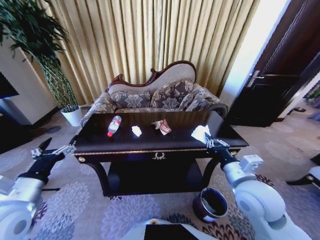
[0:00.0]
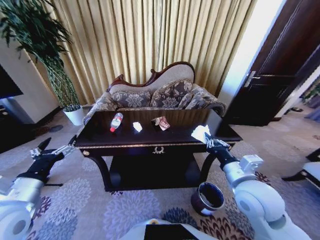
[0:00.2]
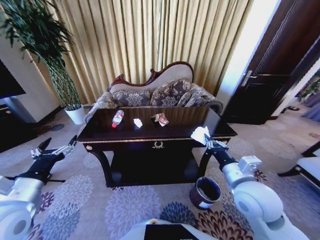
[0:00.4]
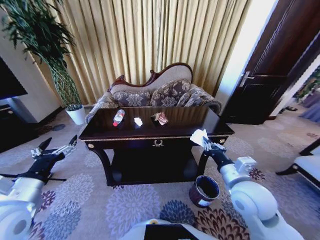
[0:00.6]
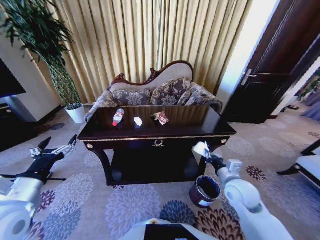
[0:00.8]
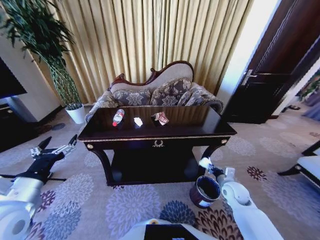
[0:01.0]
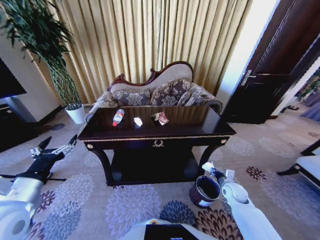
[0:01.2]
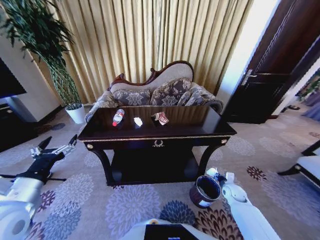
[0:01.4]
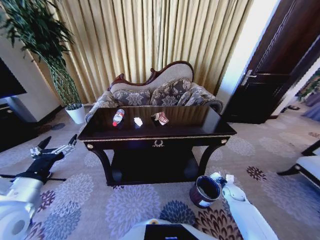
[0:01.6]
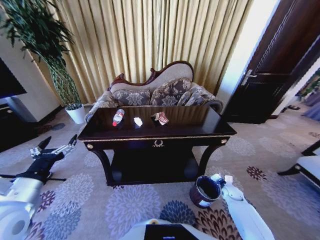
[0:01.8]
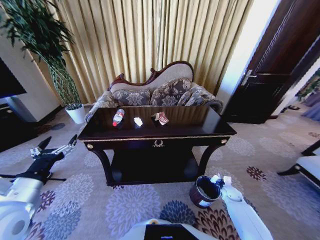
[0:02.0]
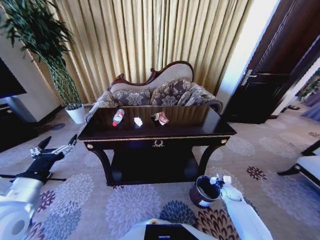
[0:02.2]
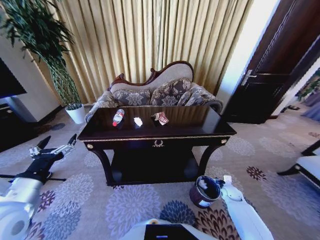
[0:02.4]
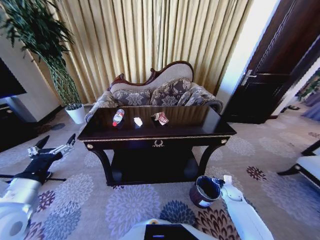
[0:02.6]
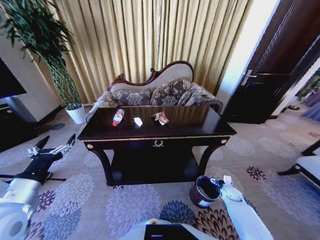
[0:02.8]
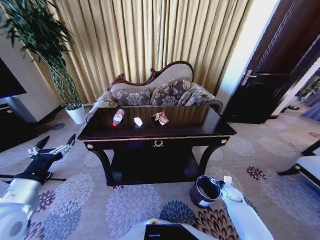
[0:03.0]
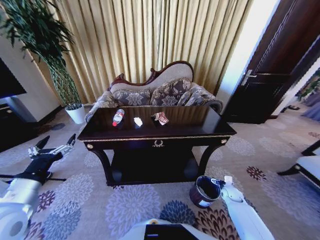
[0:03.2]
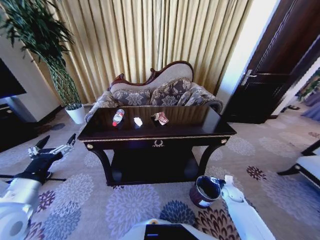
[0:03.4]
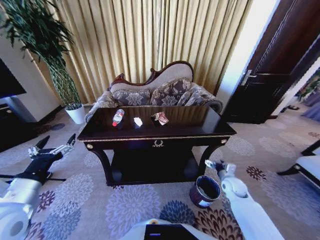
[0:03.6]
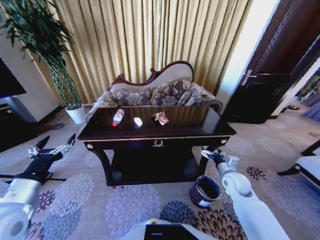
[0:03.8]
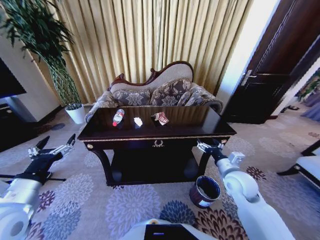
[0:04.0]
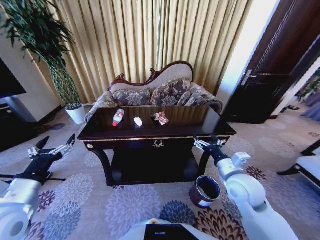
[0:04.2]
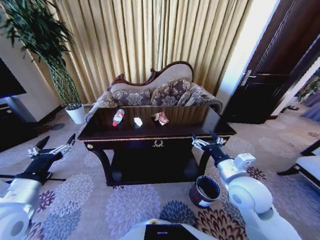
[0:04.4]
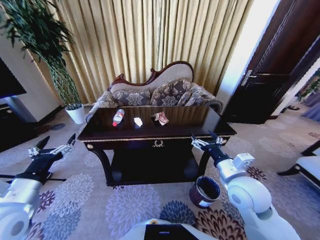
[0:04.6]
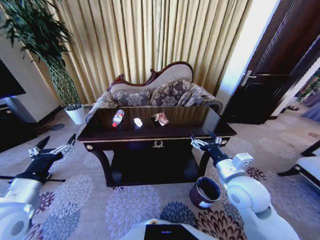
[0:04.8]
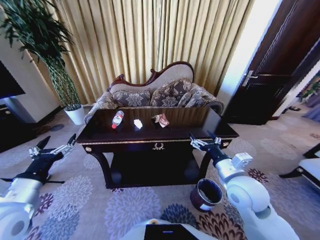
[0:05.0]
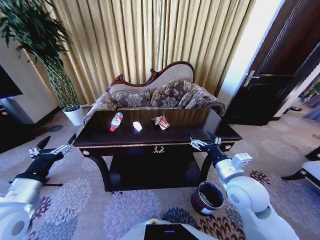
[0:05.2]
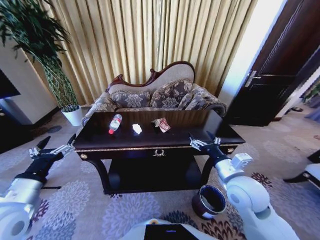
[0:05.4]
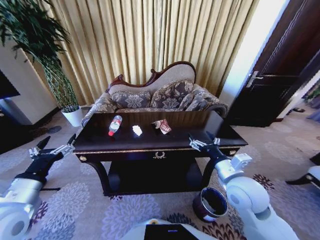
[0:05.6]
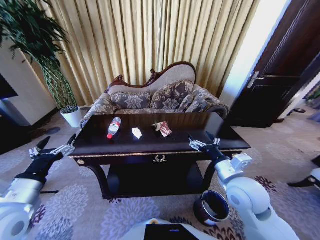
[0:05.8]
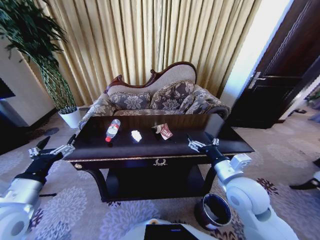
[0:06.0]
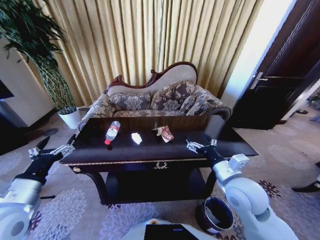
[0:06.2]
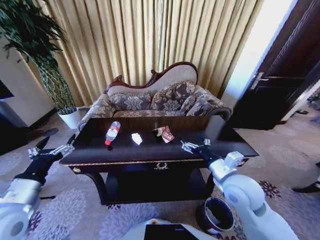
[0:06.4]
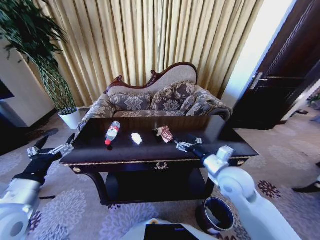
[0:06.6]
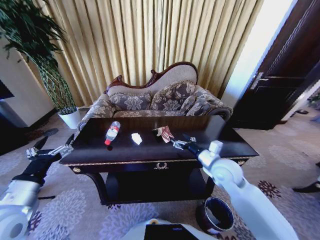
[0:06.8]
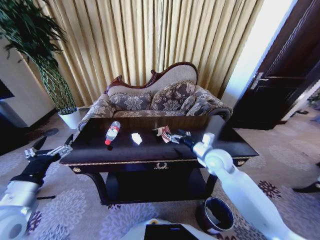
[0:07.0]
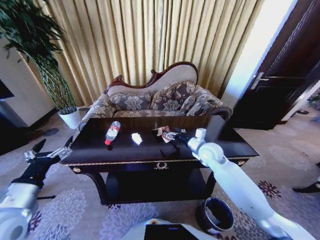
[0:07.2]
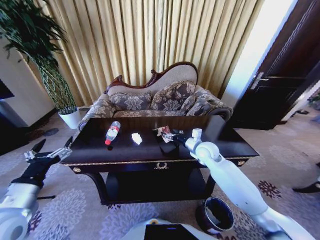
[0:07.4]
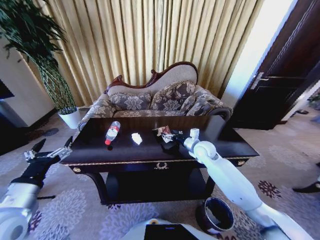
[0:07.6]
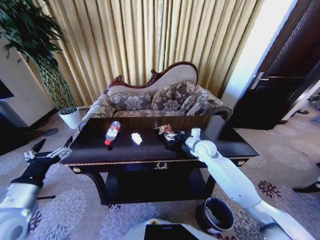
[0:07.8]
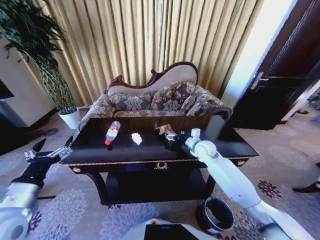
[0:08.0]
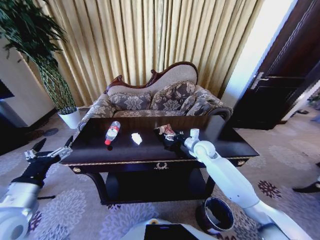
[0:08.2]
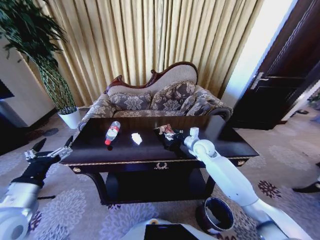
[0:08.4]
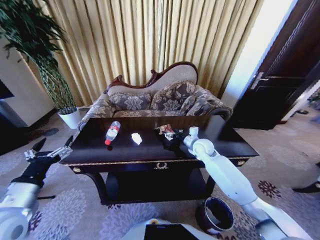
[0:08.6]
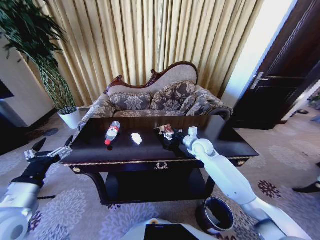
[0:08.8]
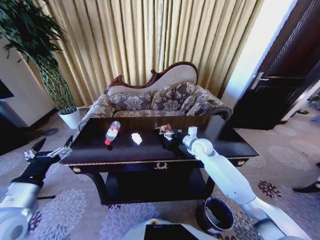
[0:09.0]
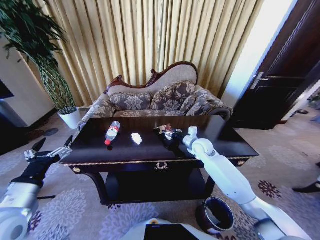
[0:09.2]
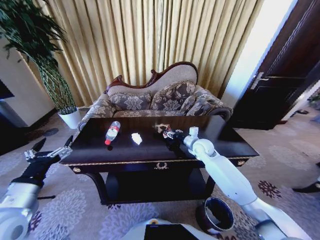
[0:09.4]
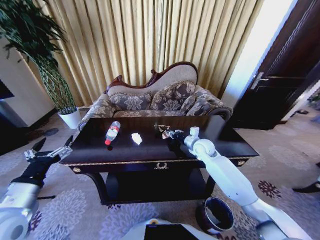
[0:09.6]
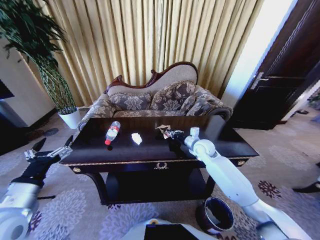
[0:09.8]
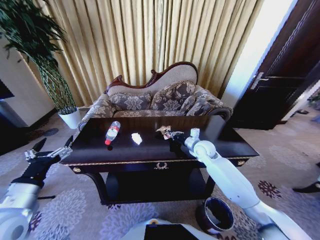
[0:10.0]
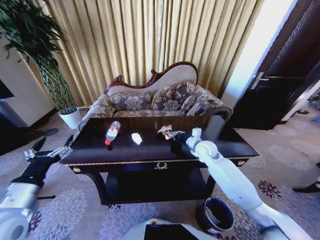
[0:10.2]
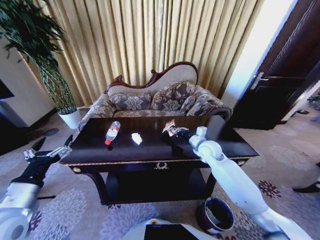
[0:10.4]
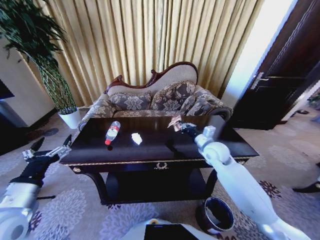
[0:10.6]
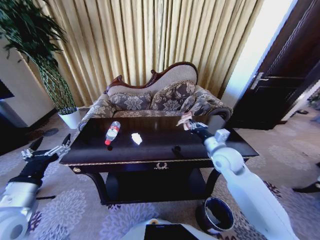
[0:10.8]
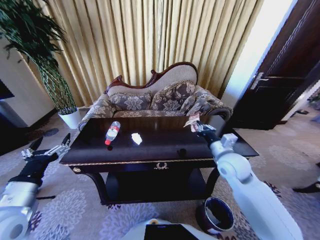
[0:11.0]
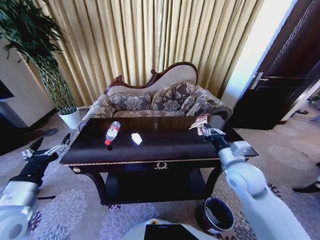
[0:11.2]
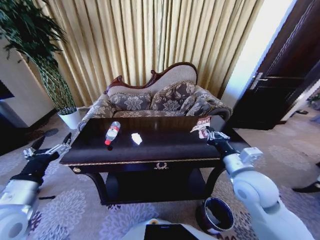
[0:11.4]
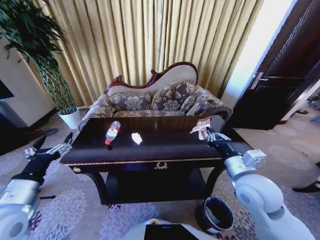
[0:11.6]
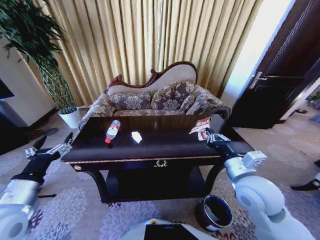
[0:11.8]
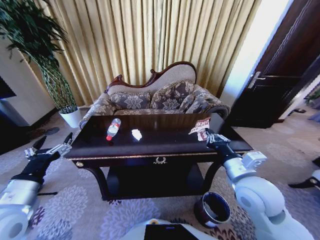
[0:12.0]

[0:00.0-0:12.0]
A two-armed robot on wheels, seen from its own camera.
Task of the whole recording: Move to the front of the table and place the trash on the table into the trash bin.
0:00.0 to 0:01.6: The right gripper travels downward and to the right by roughly 40 cm.
0:01.6 to 0:03.0: The right gripper opens up.
0:03.0 to 0:04.4: The right gripper shifts some 35 cm upward and to the left.
0:06.0 to 0:07.6: The right gripper moves forward, roughly 20 cm.
0:07.6 to 0:09.0: The grippers stay close to where they were, moving slightly.
0:09.0 to 0:10.4: The right gripper closes.
0:10.4 to 0:12.0: The right gripper shifts approximately 20 cm backward.

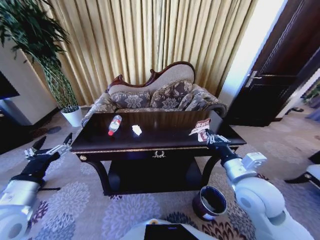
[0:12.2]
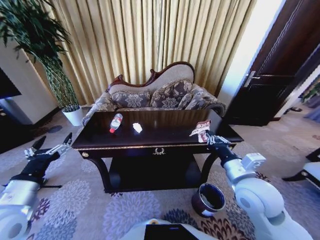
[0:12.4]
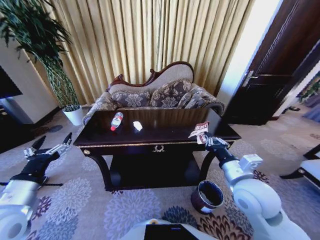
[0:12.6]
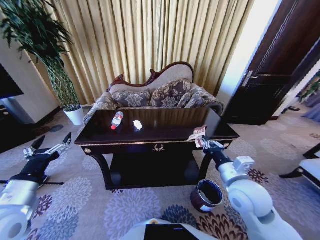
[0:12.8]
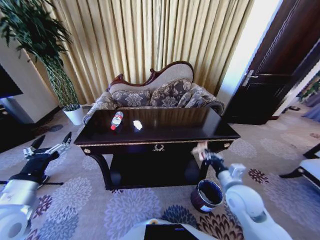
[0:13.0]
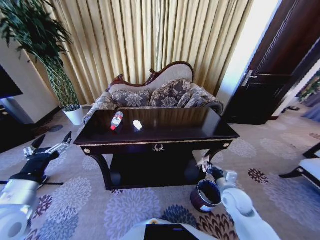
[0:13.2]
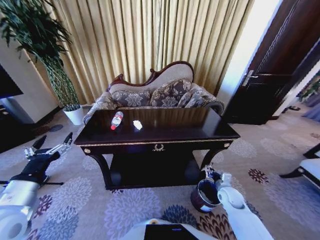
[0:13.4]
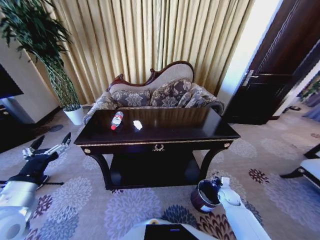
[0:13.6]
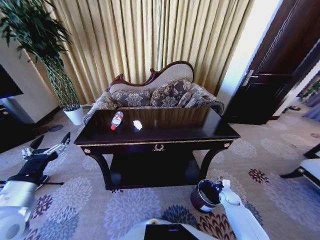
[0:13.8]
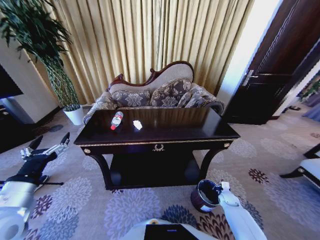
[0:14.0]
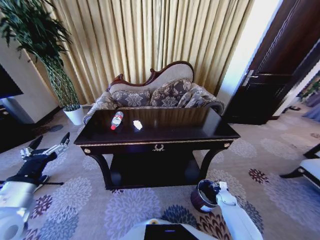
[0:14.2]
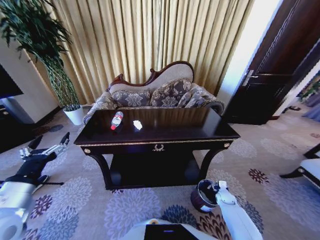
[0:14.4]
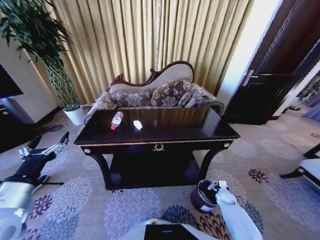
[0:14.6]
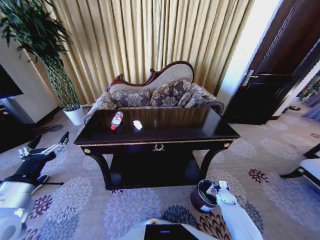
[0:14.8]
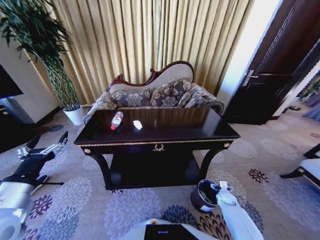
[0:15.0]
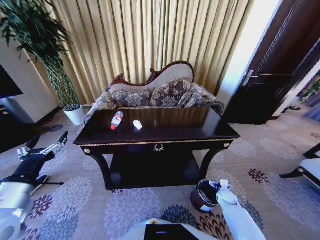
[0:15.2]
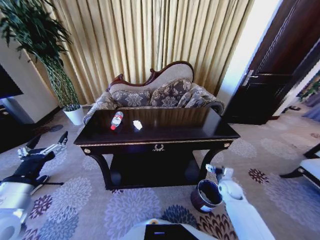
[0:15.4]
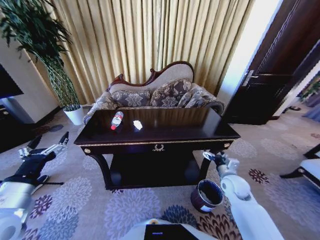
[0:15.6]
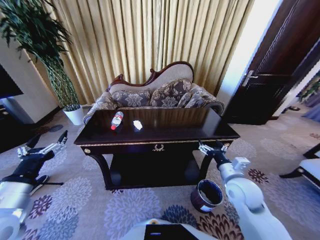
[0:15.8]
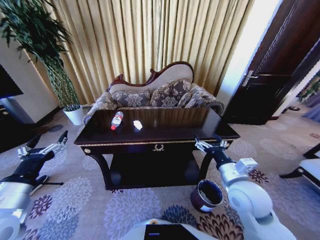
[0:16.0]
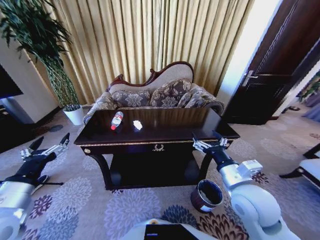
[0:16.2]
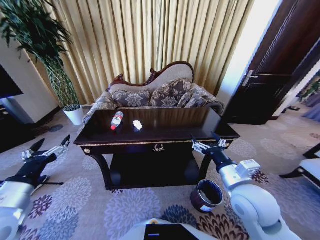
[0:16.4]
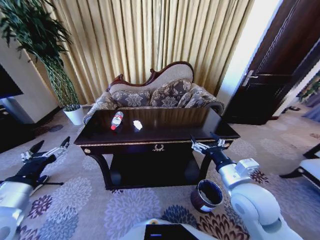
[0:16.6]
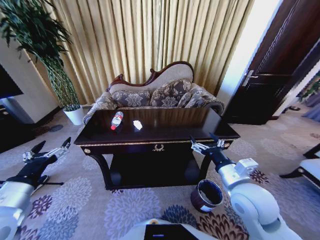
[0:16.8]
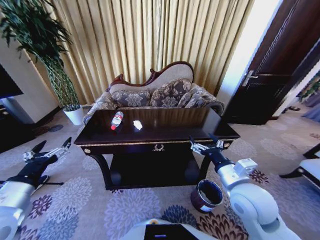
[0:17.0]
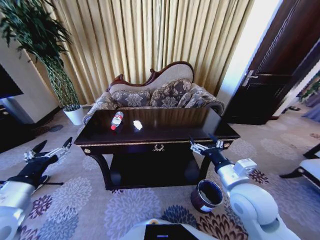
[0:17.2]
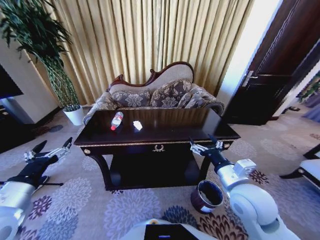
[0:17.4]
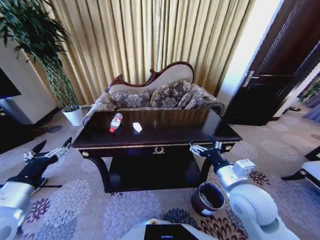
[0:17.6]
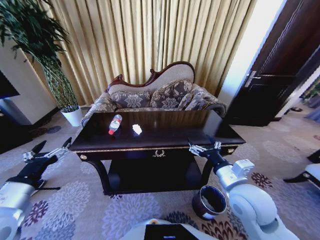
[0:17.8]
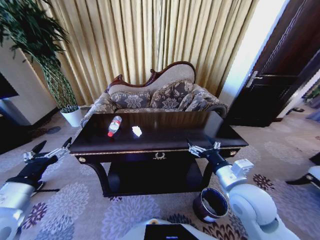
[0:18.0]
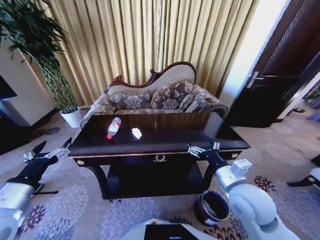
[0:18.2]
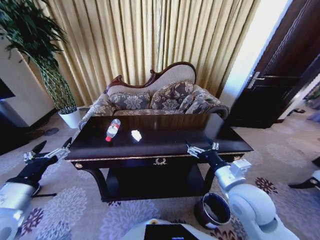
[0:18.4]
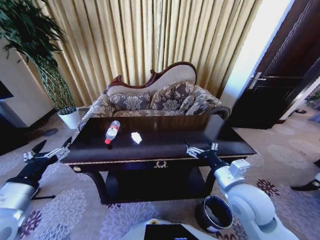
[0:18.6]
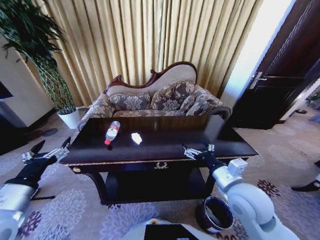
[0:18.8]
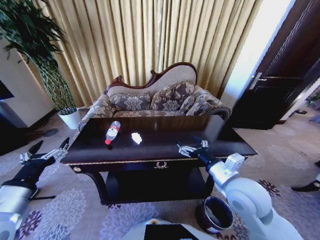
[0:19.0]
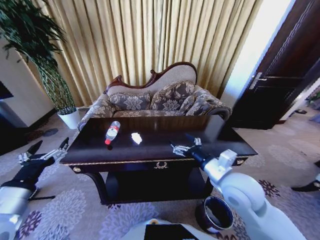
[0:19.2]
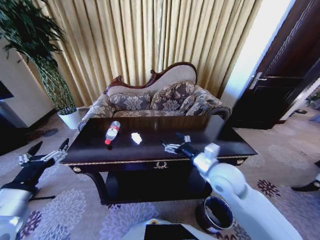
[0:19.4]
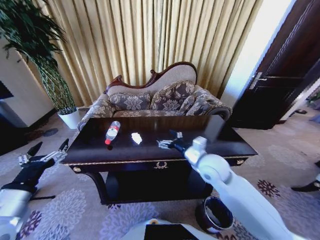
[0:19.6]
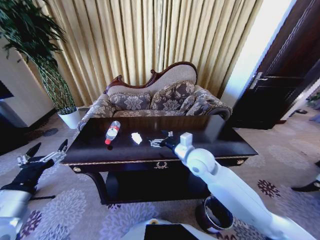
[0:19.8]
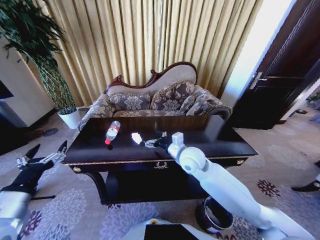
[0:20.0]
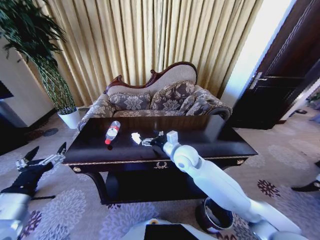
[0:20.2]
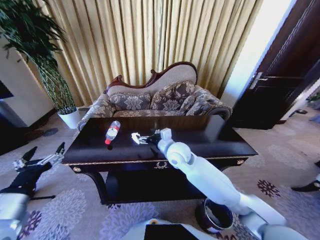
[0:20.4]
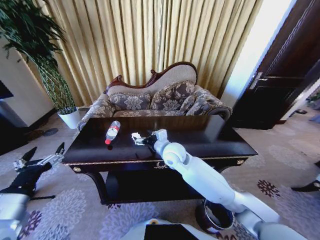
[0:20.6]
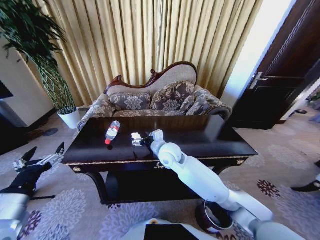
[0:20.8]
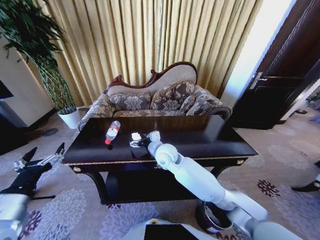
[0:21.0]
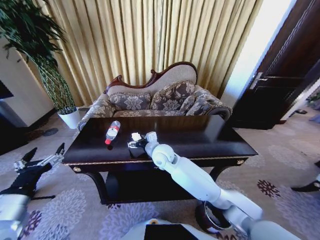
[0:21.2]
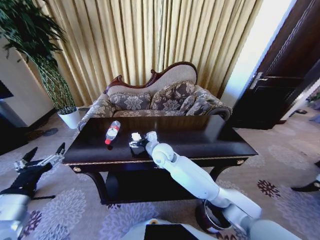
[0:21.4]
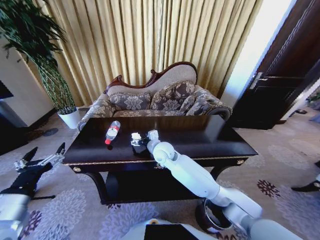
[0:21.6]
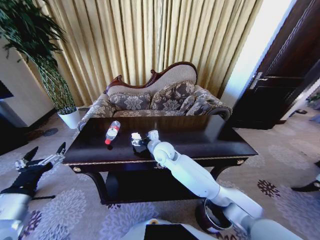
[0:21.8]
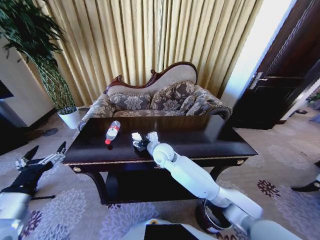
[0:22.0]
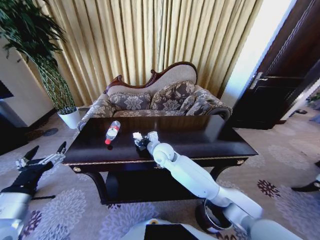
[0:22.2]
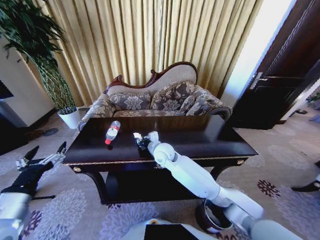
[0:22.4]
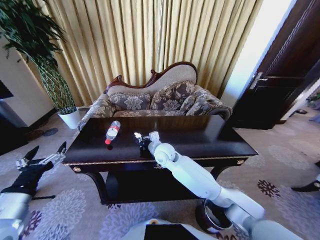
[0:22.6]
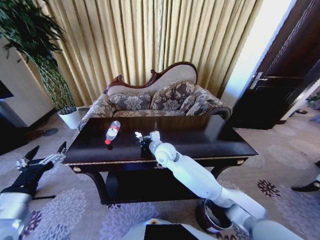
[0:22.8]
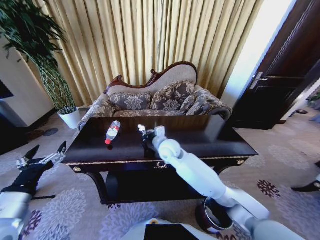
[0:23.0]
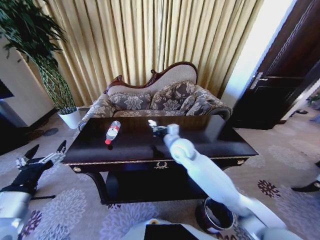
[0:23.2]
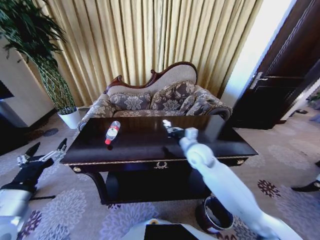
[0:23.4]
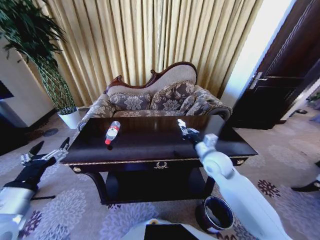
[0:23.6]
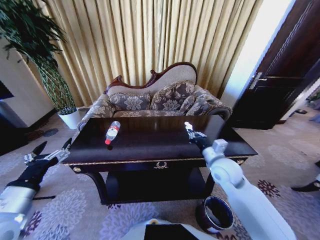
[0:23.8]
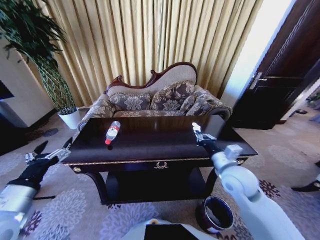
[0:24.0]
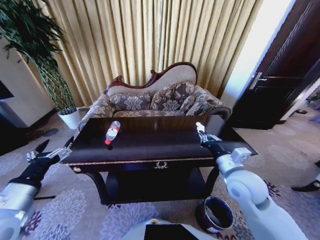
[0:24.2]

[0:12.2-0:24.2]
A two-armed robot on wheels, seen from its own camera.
Task of the whole recording: Move to the front of the table and place the trash on the table into the trash bin.
0:12.2 to 0:13.8: The right gripper shifts some 40 cm downward and to the right.
0:13.8 to 0:15.2: The right gripper opens its fingers.
0:15.2 to 0:16.6: The right gripper heads upward and to the left, covering approximately 40 cm.
0:18.2 to 0:19.8: The right gripper travels forward and to the left by approximately 15 cm.
0:19.8 to 0:21.2: The right gripper travels to the left by some 15 cm.
0:21.2 to 0:22.6: The right gripper closes its fingers.
0:22.6 to 0:24.2: The right gripper goes approximately 30 cm to the right and backward.
